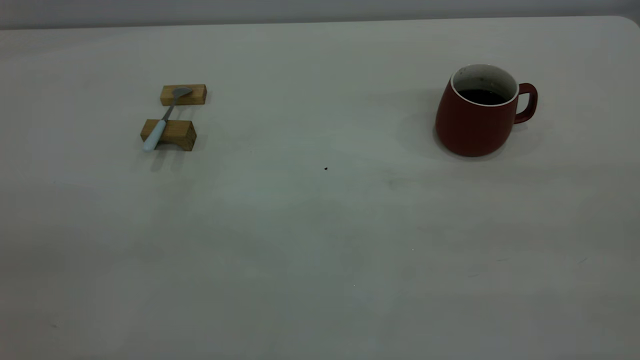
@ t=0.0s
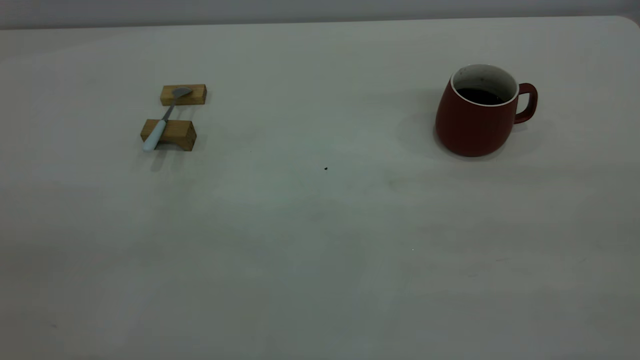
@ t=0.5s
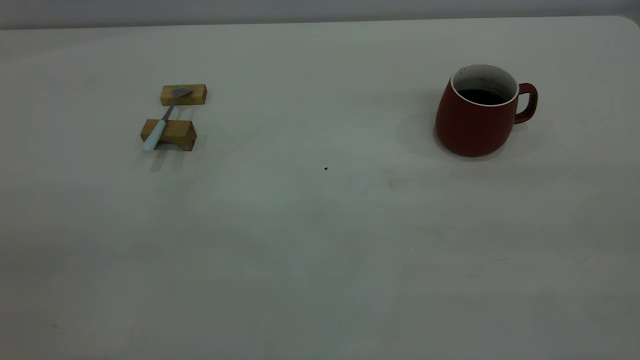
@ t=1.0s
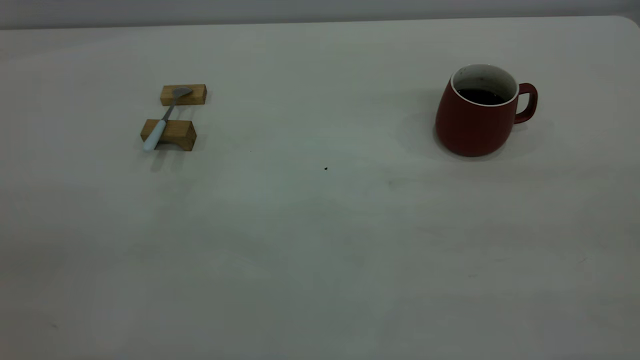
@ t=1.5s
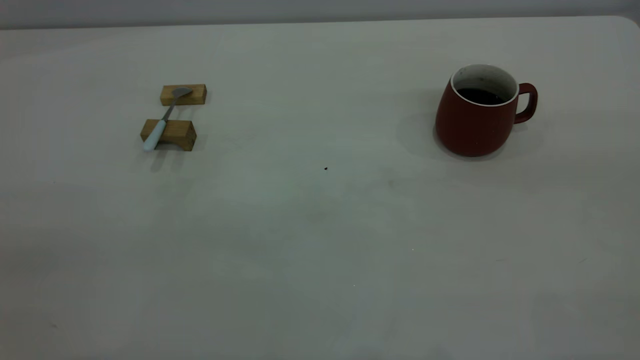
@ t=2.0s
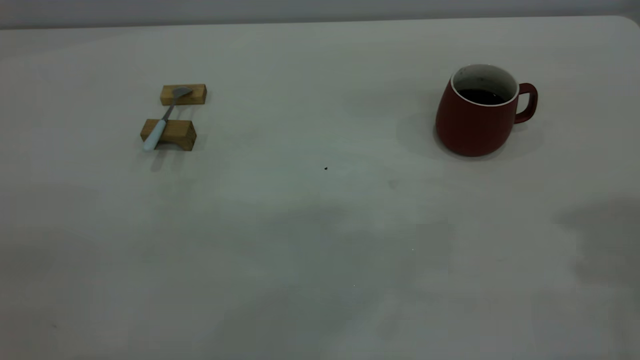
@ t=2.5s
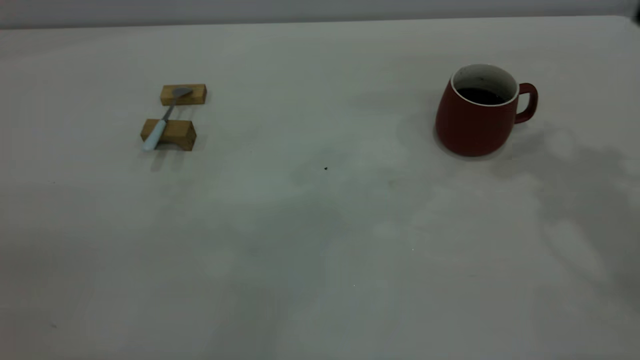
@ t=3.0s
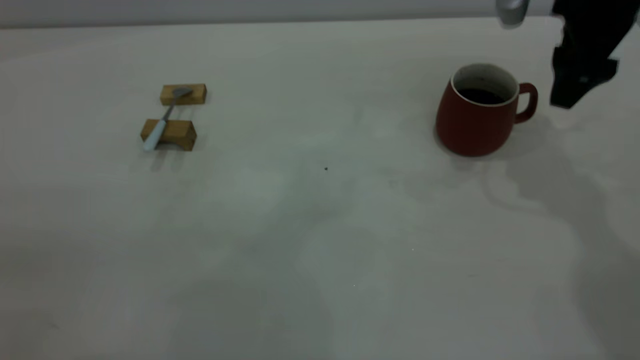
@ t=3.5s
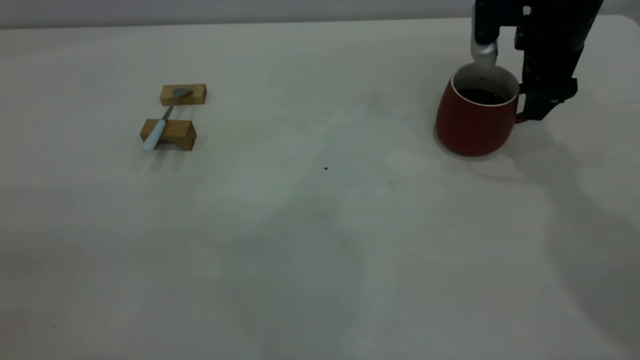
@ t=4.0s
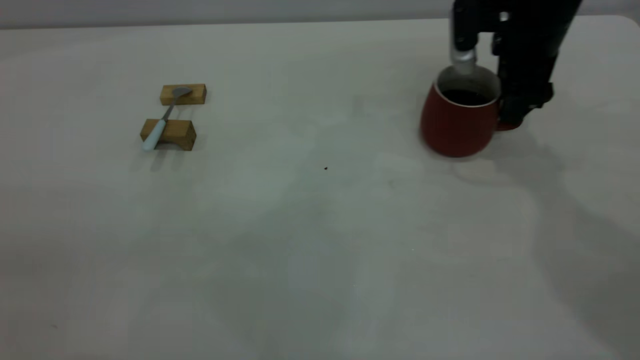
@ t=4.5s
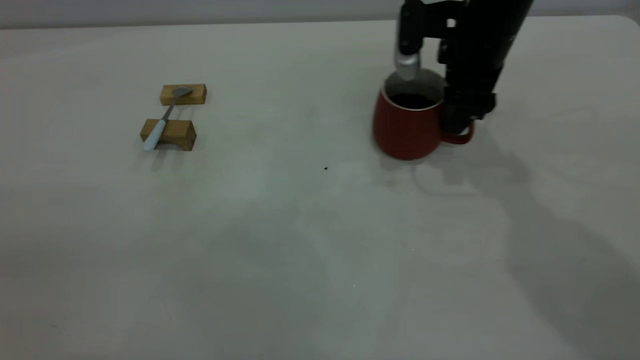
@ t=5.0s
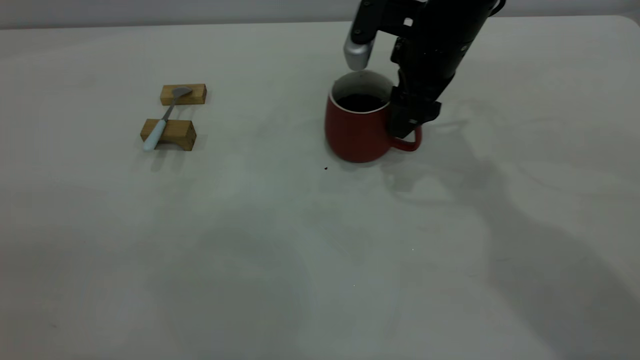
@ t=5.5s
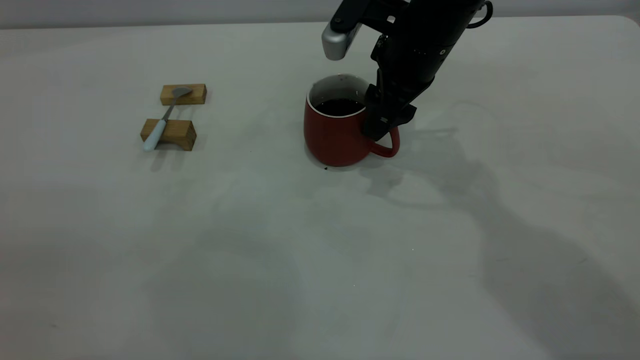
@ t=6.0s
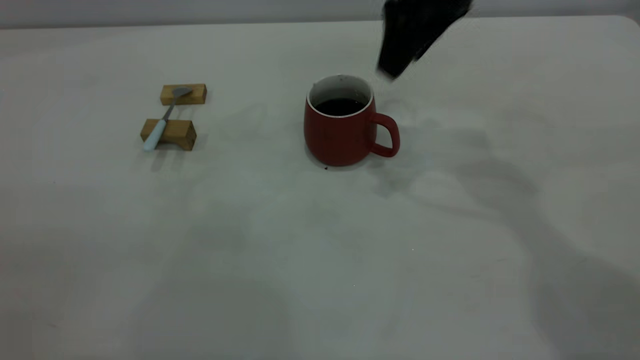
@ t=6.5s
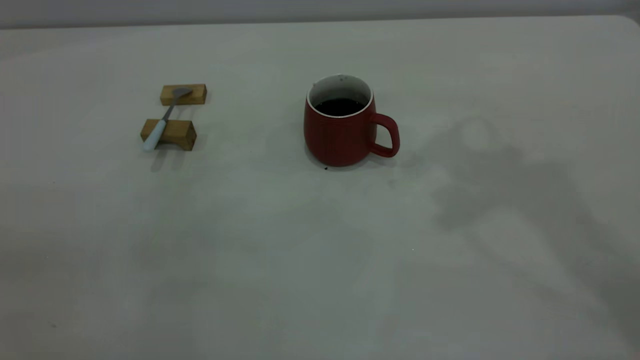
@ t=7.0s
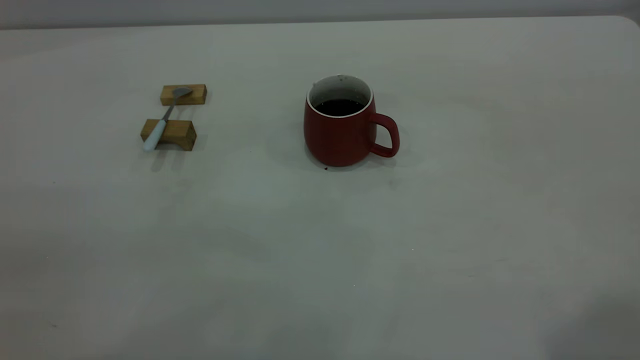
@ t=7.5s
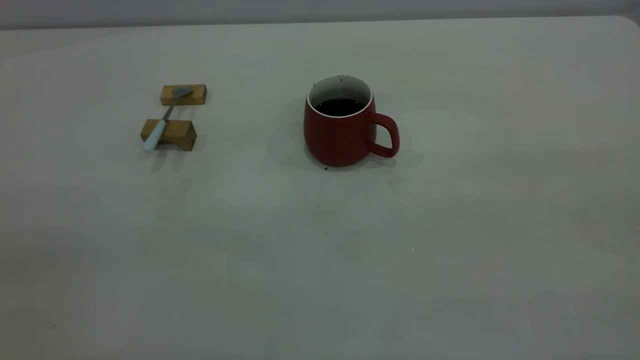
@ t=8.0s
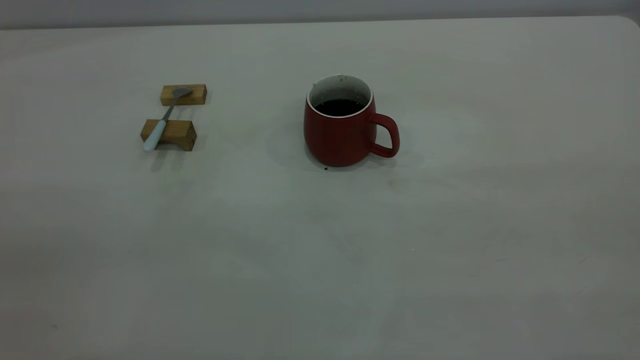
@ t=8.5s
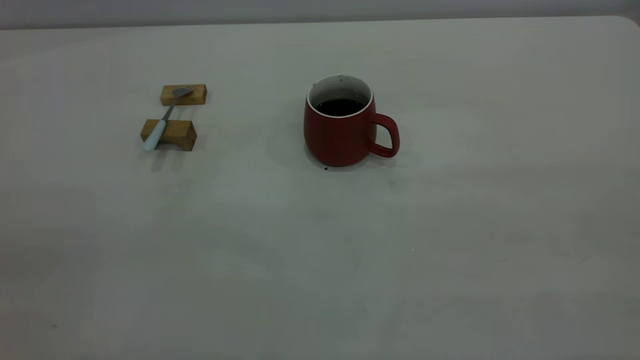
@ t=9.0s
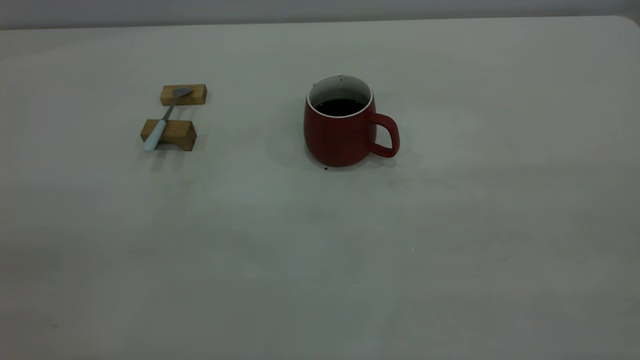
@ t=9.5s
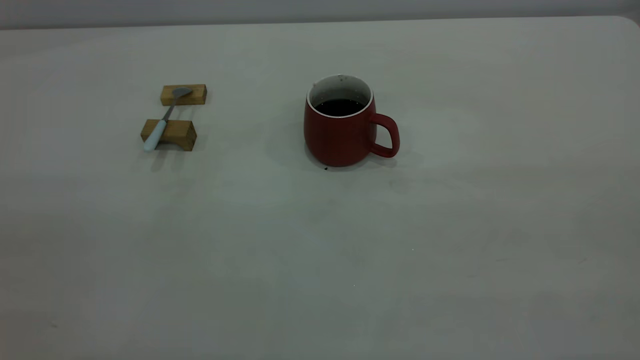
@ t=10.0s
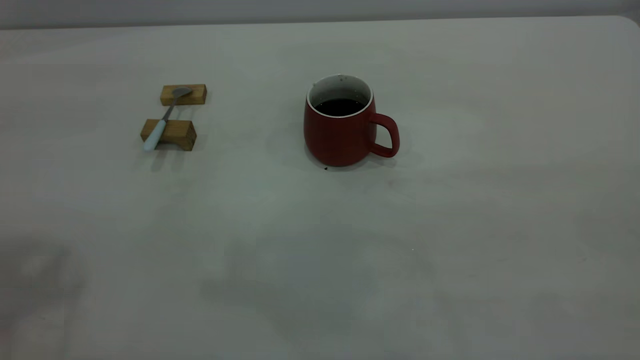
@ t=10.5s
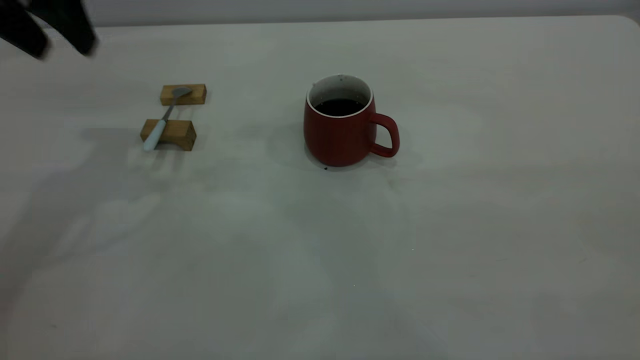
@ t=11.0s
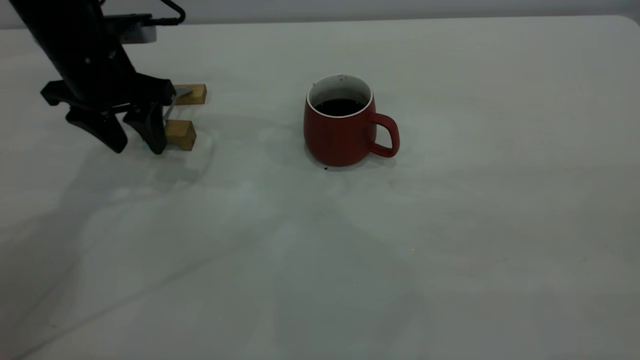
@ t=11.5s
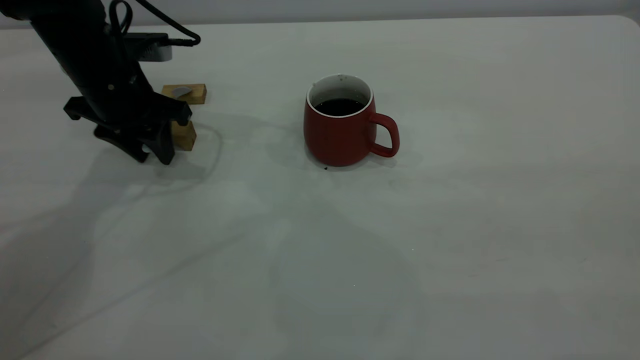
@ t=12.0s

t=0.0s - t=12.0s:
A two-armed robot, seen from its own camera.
Step, t=0.0s - t=6.0s: Move the cup with coffee to the center of view.
t=2.0s - t=4.0s: The right gripper is displaced forward and downward by approximately 50 cm.
t=4.0s - t=6.0s: The right gripper travels to the left by some 15 cm.
t=6.0s - t=8.0s: The right gripper travels backward, upward and to the right by approximately 50 cm.
t=10.0s - t=12.0s: The left gripper moves forward and downward, about 50 cm, and closes up.

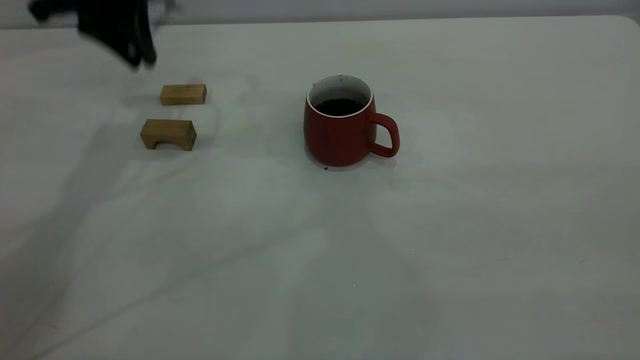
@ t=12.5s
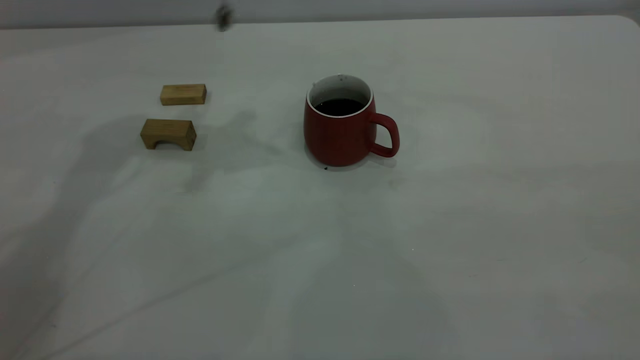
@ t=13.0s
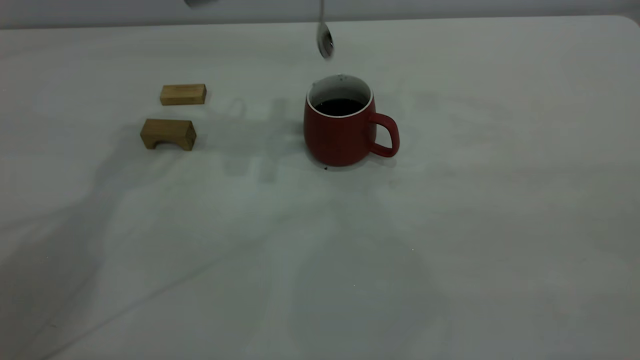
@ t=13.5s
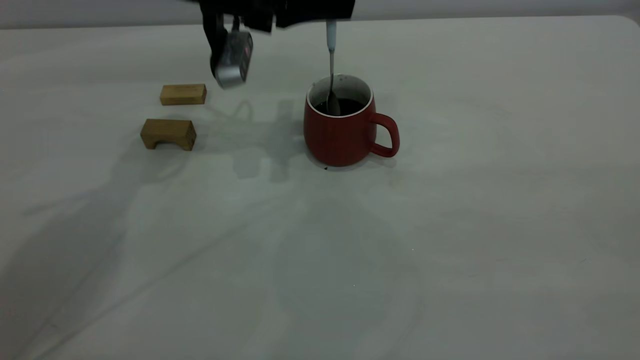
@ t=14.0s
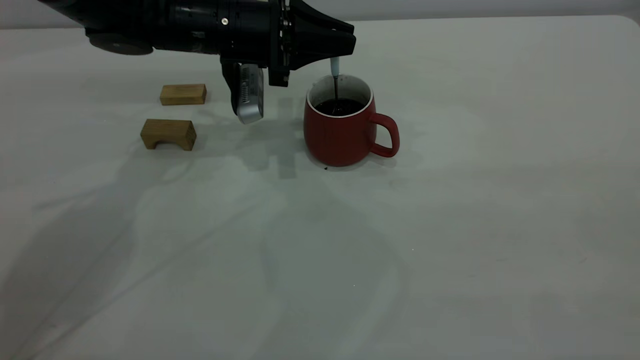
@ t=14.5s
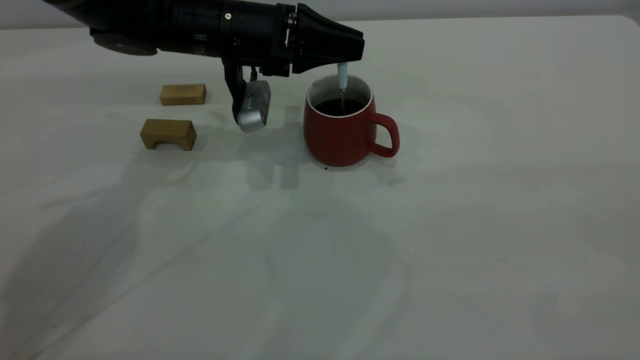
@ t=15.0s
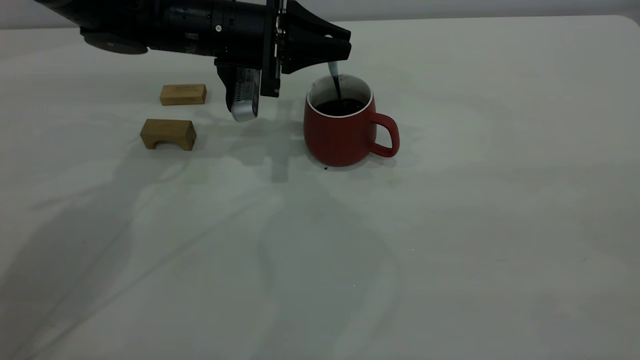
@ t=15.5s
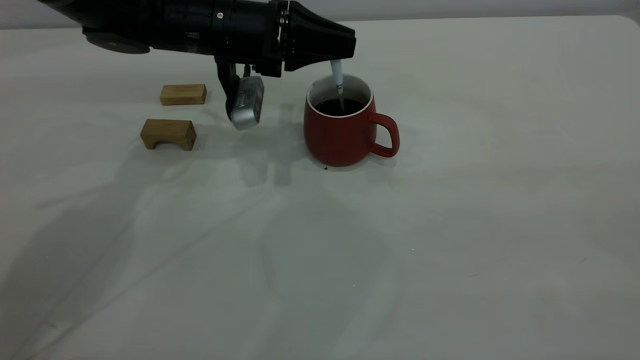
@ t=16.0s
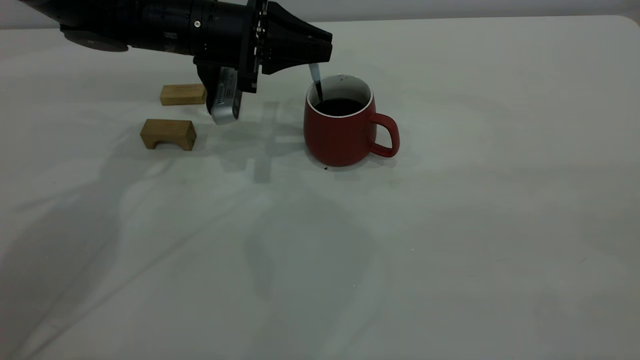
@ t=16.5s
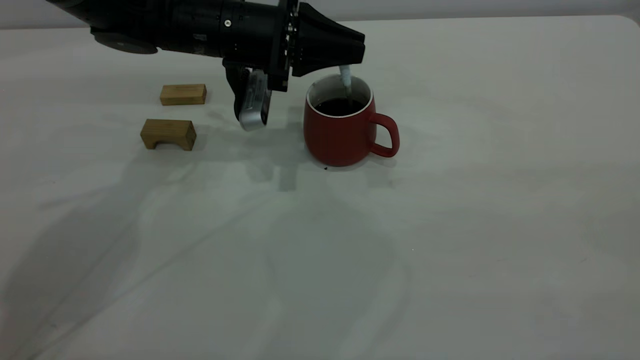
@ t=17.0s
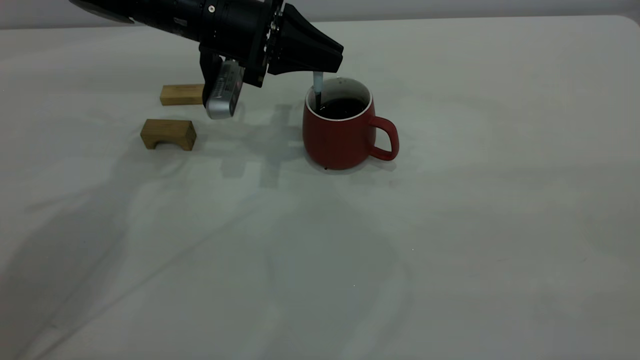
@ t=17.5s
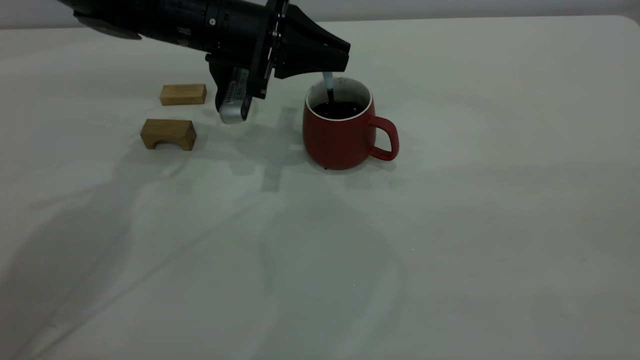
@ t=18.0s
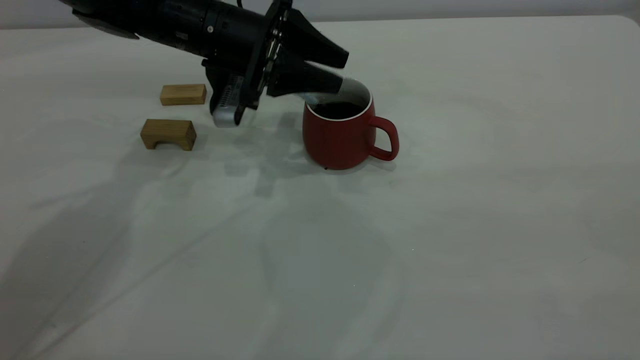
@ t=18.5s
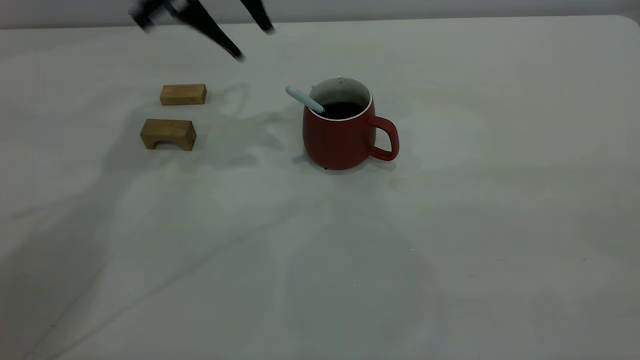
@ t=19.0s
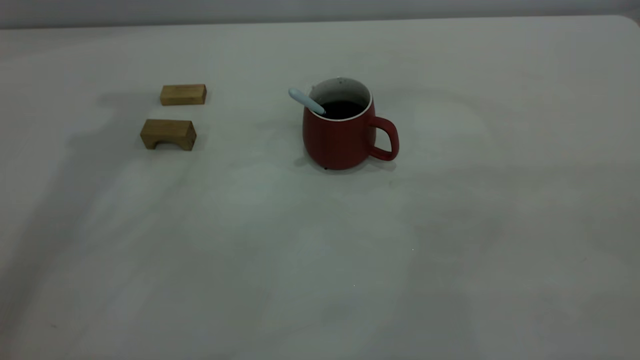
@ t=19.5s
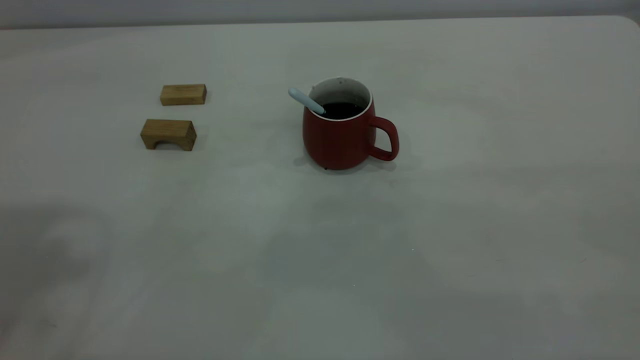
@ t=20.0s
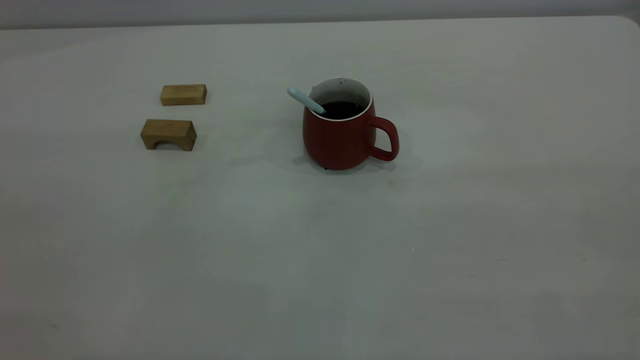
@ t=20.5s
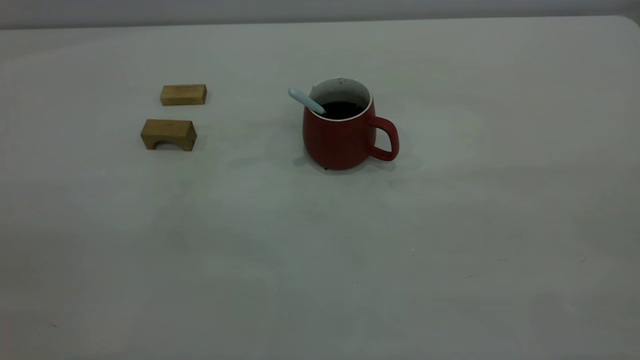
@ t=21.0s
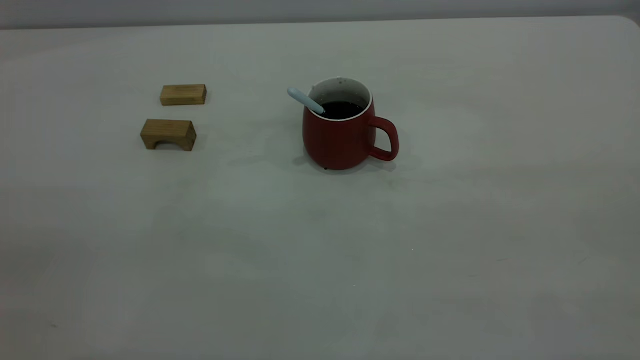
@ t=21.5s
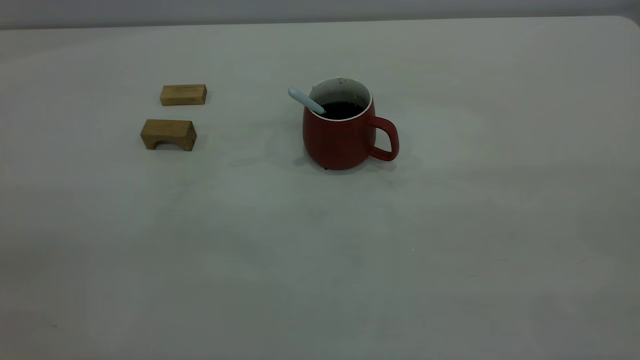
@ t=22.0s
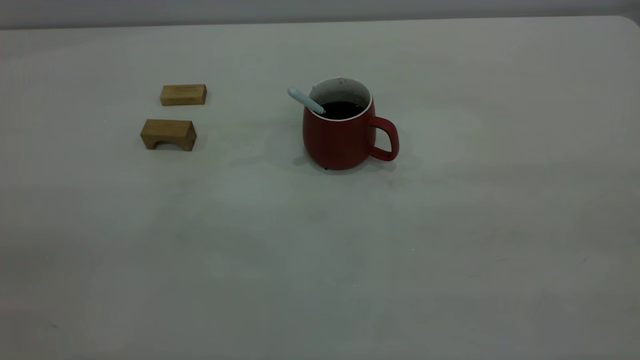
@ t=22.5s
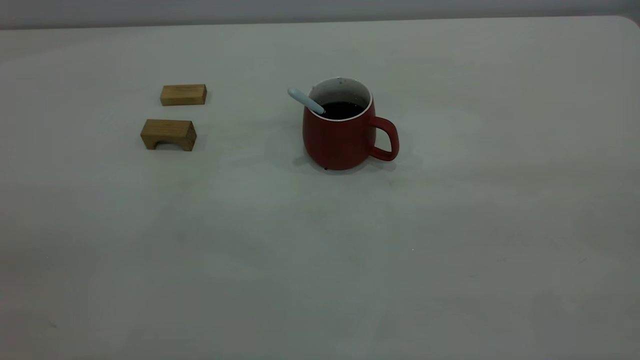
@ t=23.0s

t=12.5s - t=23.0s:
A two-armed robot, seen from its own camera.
Step, t=12.5s - t=18.5s: Stir the coffee in the cup.
t=12.5s - t=14.5s: The left gripper is displaced downward and to the right by approximately 15 cm.
t=14.5s - t=16.5s: There are only small adjustments of the grippers.
t=16.5s - t=19.0s: The left gripper moves upward, roughly 15 cm, and opens.
t=19.0s - t=21.0s: The left gripper is displaced backward by some 50 cm.
